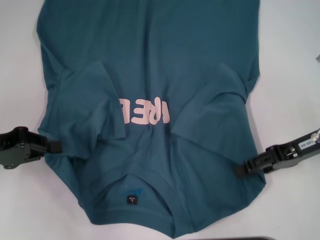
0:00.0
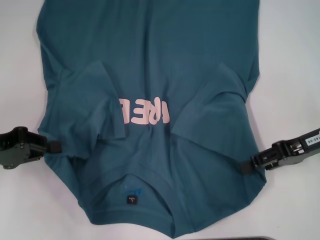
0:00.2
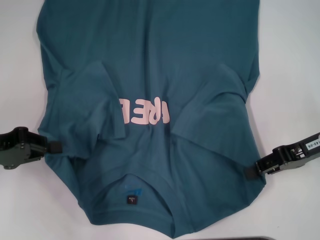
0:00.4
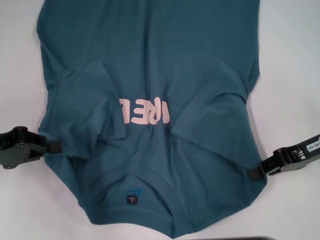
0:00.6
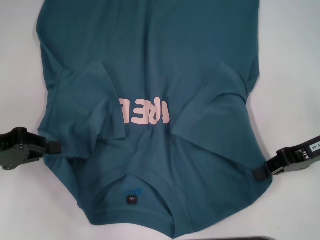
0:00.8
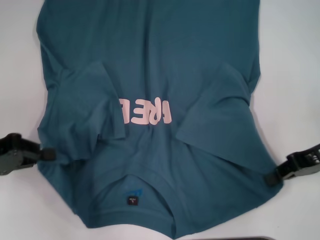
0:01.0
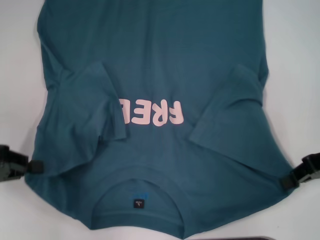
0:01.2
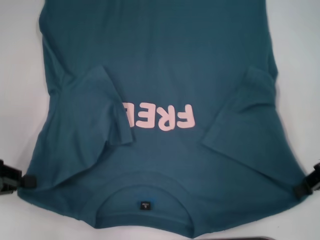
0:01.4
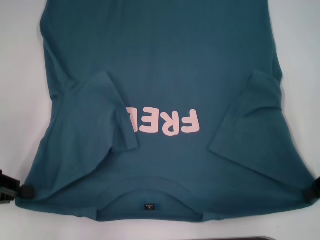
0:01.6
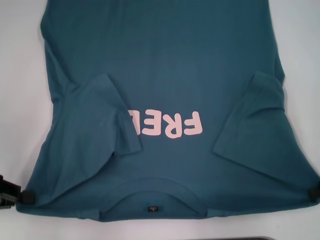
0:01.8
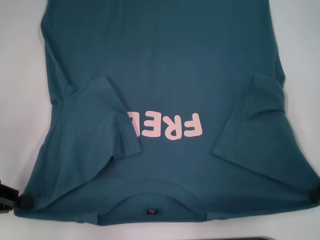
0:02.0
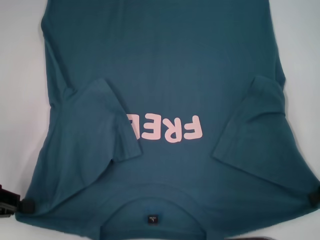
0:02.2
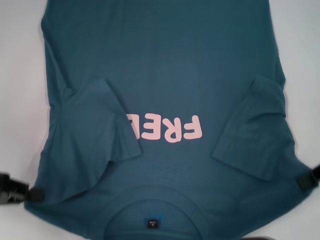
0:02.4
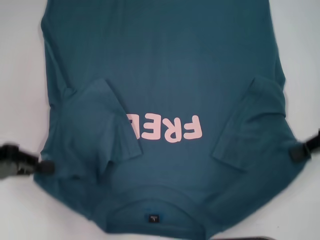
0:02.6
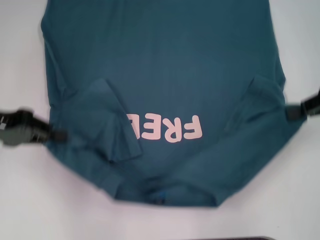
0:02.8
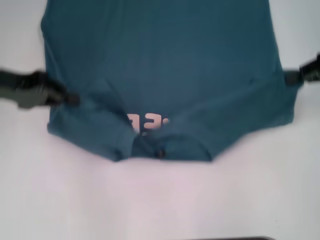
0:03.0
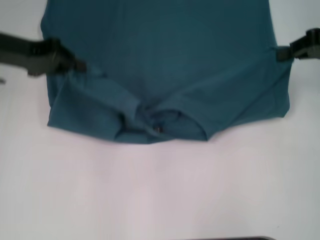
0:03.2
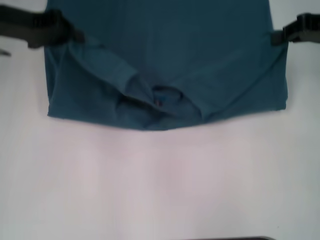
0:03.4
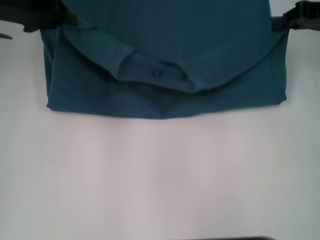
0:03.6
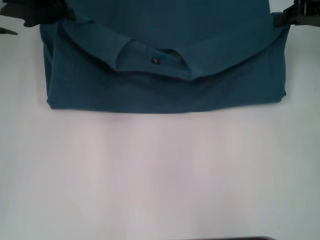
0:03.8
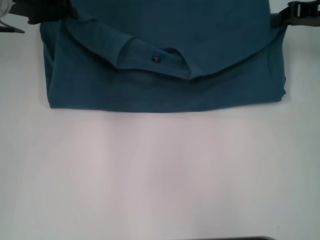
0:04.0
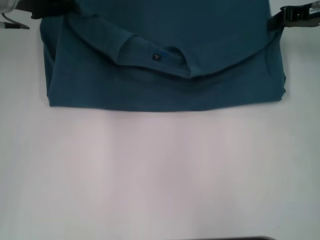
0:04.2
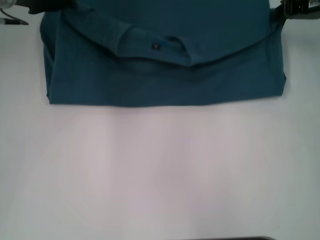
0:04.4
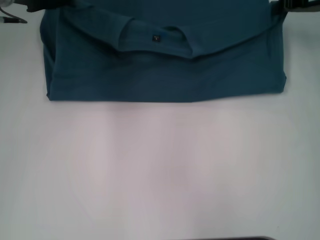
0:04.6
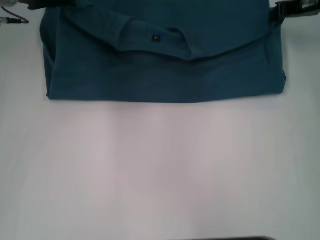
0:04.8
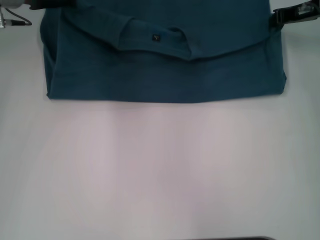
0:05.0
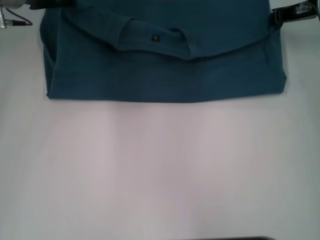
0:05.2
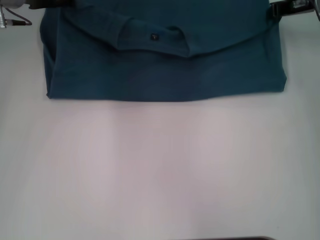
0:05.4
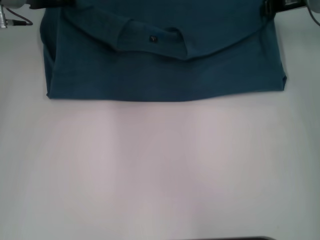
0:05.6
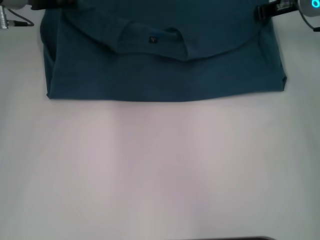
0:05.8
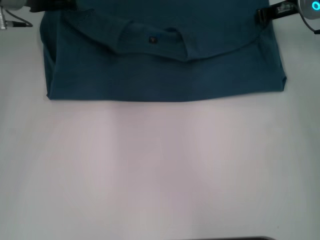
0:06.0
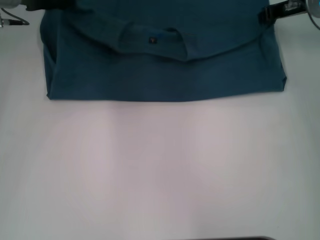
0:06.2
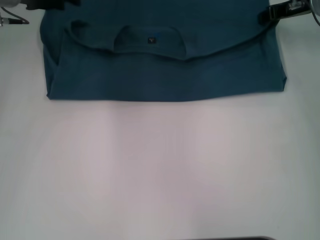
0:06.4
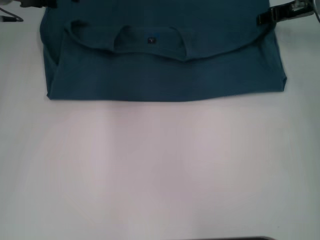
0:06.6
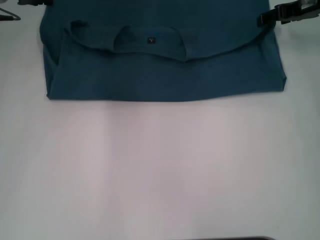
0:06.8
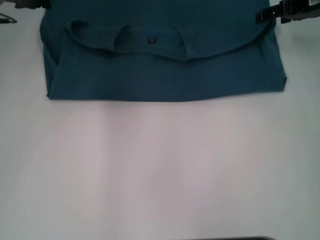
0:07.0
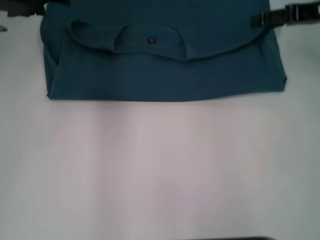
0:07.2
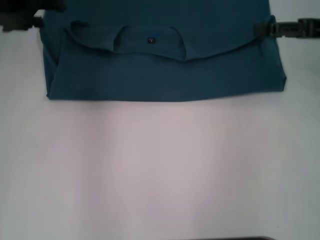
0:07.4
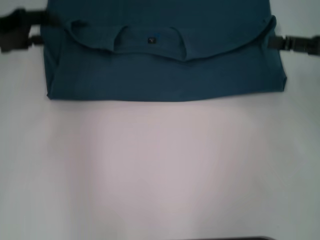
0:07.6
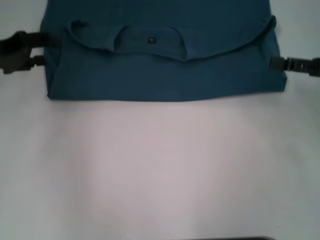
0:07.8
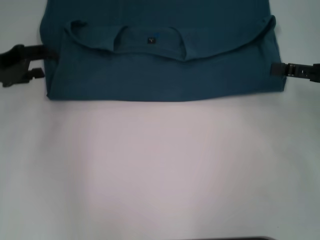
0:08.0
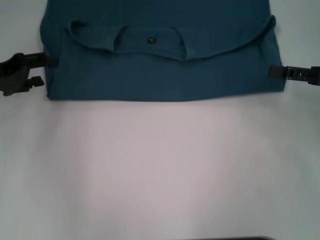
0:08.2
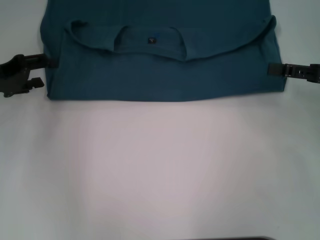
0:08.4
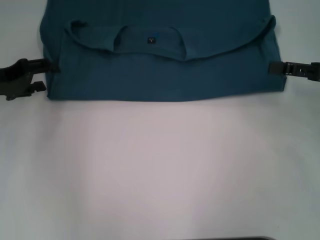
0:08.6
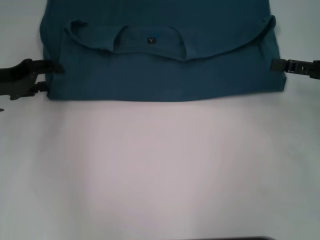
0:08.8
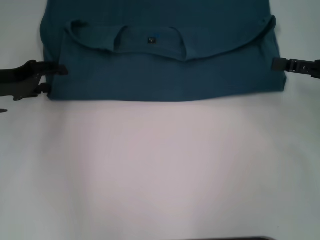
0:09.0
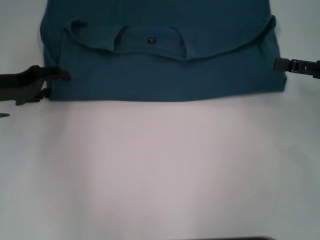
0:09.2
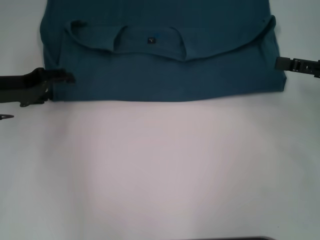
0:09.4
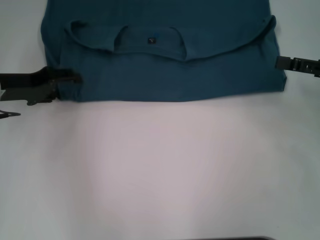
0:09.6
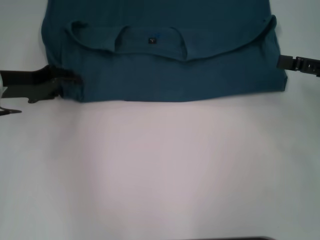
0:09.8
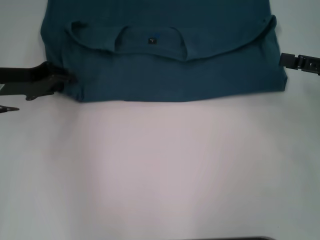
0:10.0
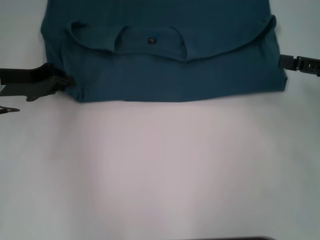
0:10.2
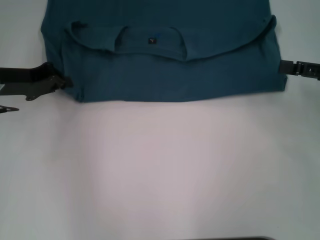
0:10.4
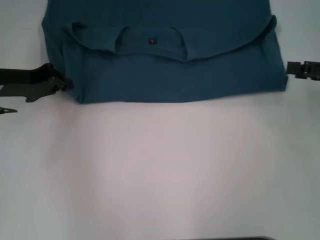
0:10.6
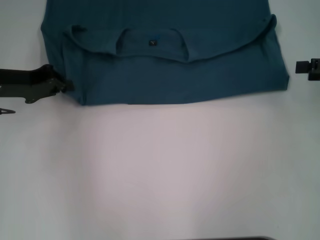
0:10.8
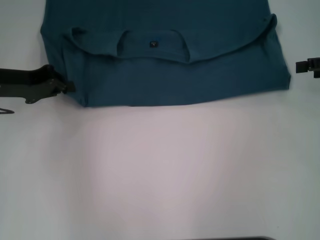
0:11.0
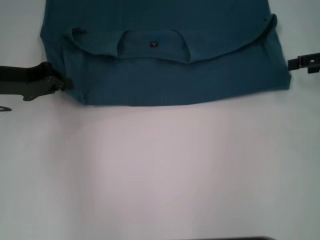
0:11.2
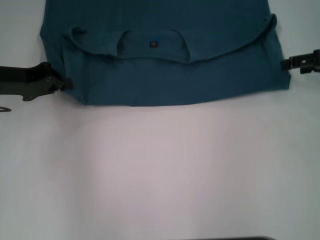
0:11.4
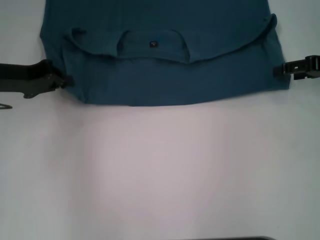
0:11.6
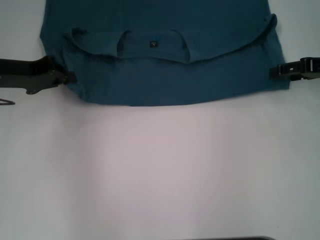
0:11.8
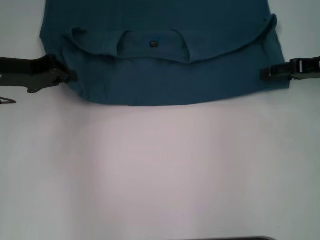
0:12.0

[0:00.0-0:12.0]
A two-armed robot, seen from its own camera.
Step, 0:00.8 to 0:06.8: Fold the clothes to the left.
Step, 0:00.8 to 0:06.8: Fold the clothes to the right.
0:00.0 to 0:01.6: The right gripper is displaced to the right by some 5 cm, and closes up.
0:01.6 to 0:03.0: The right gripper is displaced forward and upward by about 10 cm. Meanwhile the left gripper goes some 15 cm forward, to the right and upward.
0:03.0 to 0:04.4: The right gripper moves forward, roughly 10 cm. The left gripper moves forward and to the right, roughly 15 cm.
0:04.4 to 0:06.0: The right gripper moves approximately 5 cm.
0:06.0 to 0:07.6: The left gripper goes approximately 10 cm backward and to the left, and opens its fingers; the right gripper heads backward and to the right, covering roughly 15 cm, and opens its fingers.
0:07.6 to 0:09.0: The left gripper moves downward, approximately 5 cm.
0:09.0 to 0:10.4: The left gripper closes up.
0:10.4 to 0:12.0: The right gripper moves forward, about 10 cm.

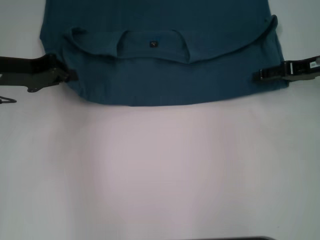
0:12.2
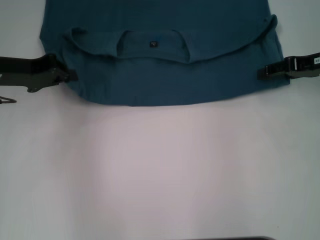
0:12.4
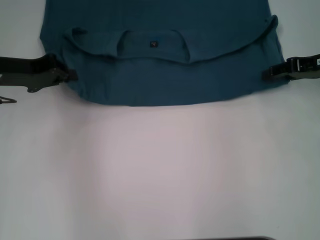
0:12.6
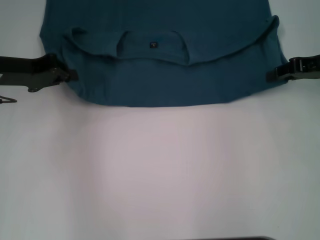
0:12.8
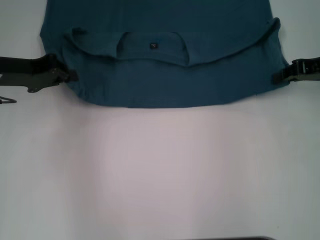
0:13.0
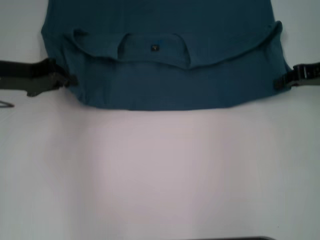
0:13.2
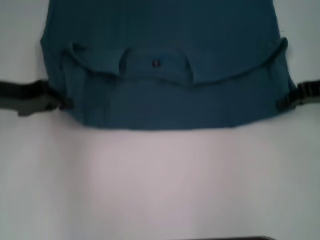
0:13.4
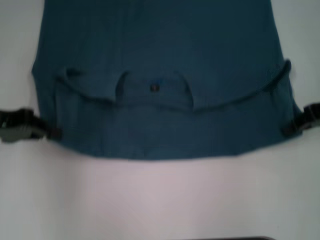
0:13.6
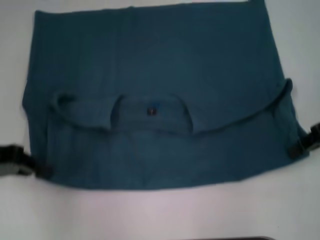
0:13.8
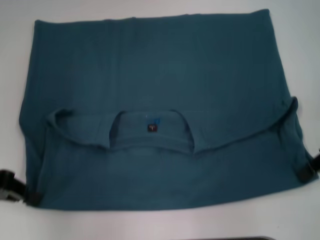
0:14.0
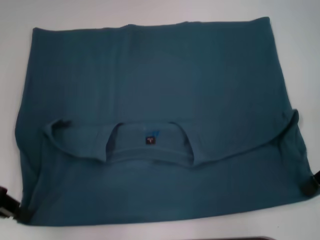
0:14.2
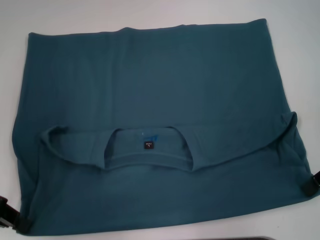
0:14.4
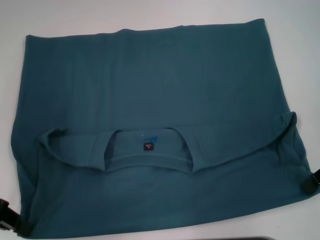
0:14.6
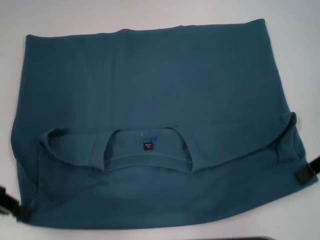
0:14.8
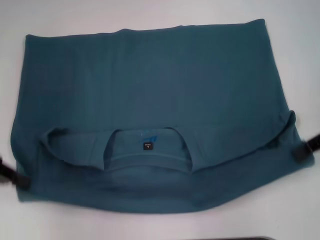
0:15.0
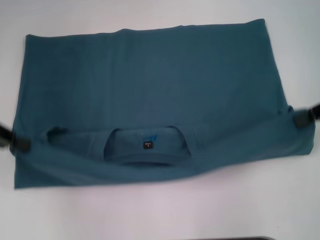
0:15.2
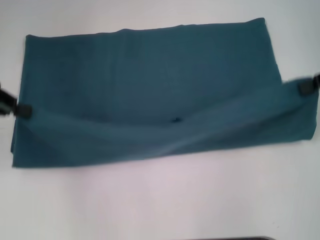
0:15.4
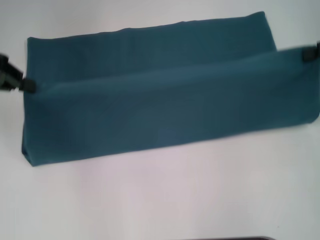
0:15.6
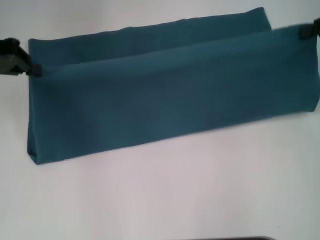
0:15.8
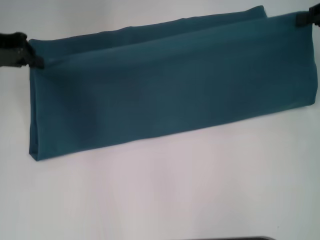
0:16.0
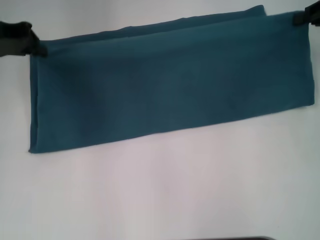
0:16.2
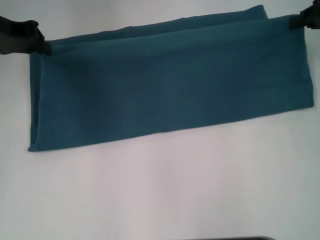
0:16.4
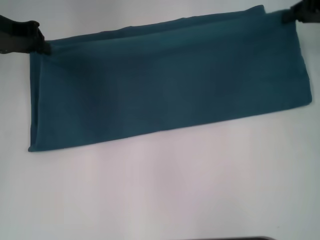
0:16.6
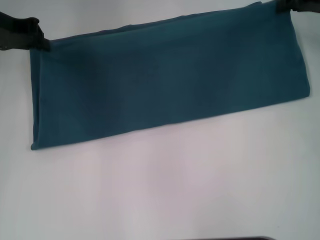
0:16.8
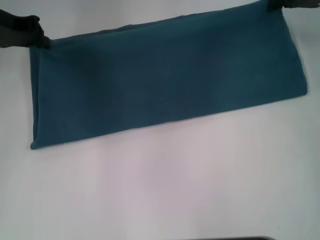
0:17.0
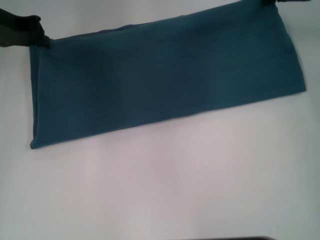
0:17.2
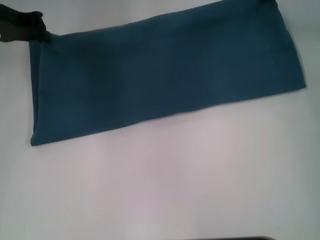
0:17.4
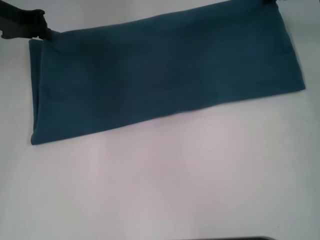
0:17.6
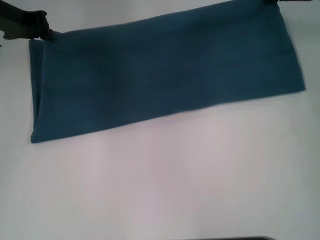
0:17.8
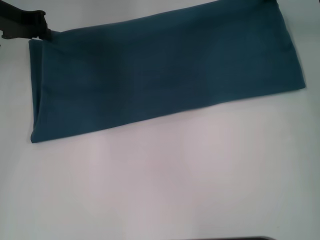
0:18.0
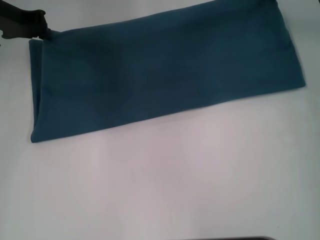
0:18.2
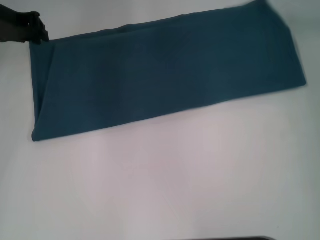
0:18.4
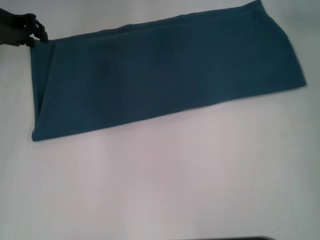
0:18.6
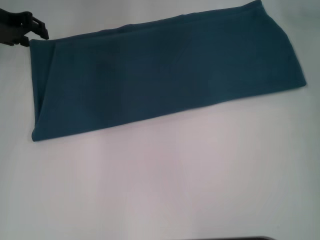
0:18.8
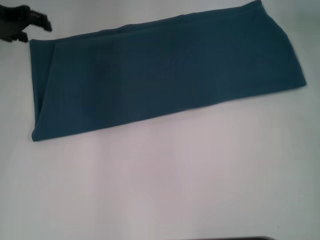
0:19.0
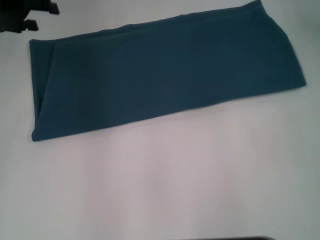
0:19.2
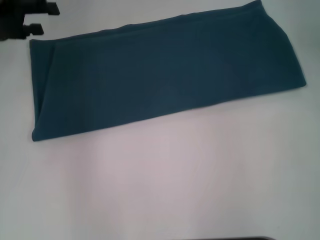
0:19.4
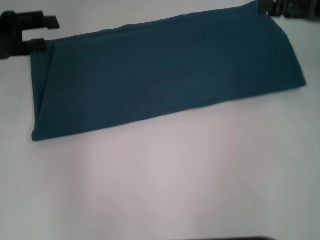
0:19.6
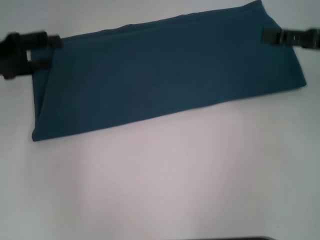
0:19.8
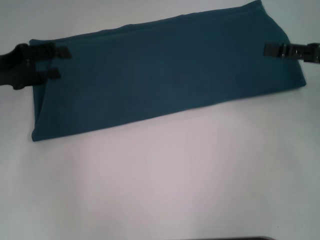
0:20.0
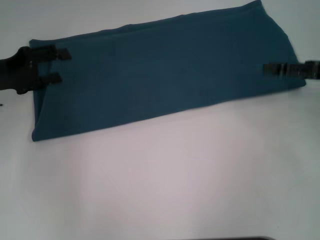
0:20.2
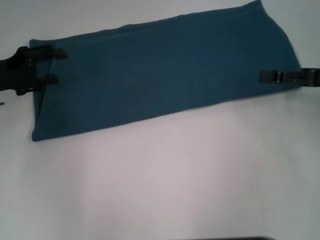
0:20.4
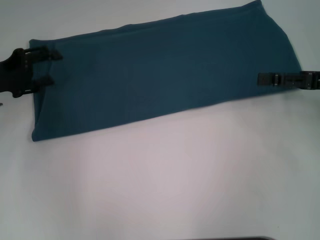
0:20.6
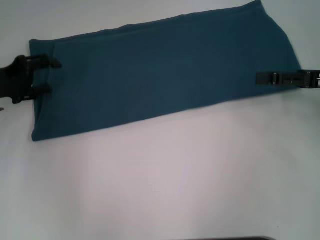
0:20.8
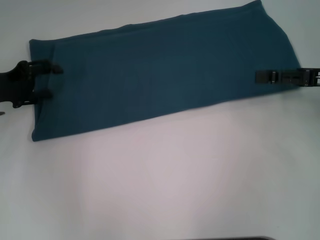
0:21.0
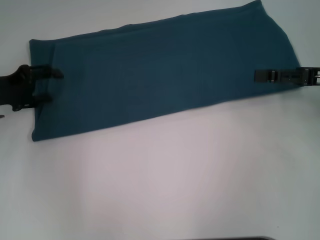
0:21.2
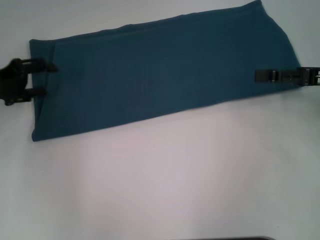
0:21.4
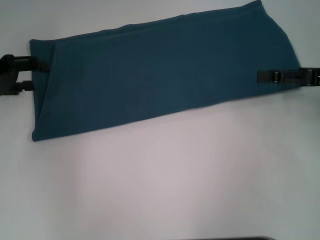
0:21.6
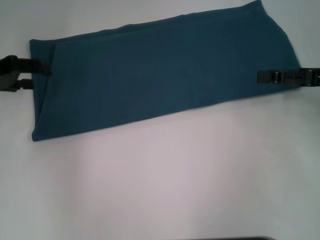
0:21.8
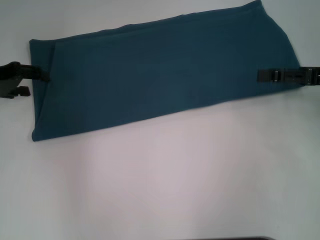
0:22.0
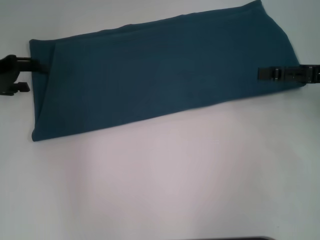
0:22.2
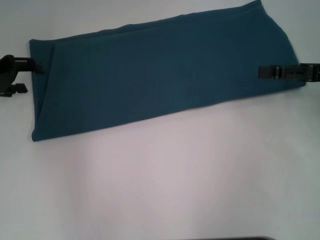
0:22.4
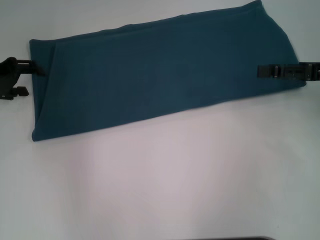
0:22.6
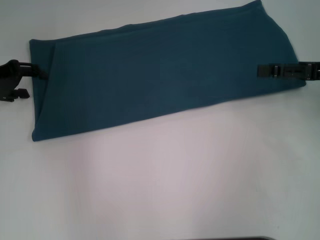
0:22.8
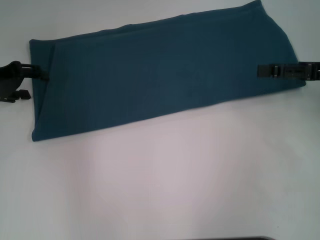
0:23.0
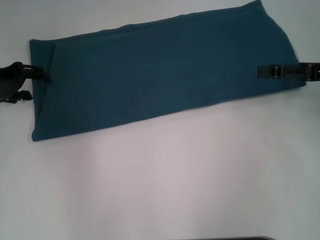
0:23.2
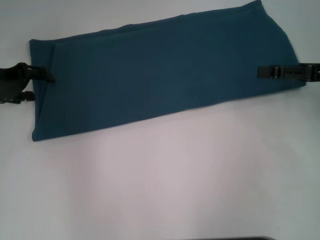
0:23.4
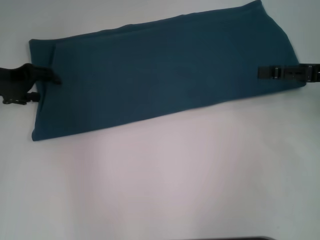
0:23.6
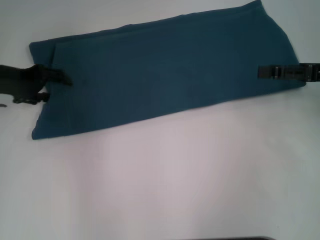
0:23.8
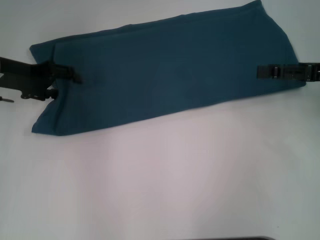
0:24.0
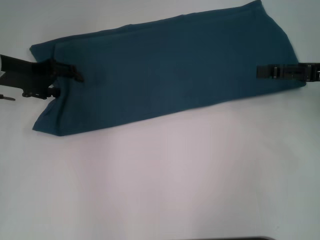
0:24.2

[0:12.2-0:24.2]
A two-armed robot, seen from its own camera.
Step, 0:12.2 to 0:14.6: Pull the clothes with your left hand.
Step, 0:12.2 to 0:14.6: Pull the clothes with your right hand.
Step, 0:14.8 to 0:18.4: Fold the clothes to the right.
0:12.2 to 0:13.8: Both grippers travel together backward, roughly 5 cm. The right gripper closes.
0:15.2 to 0:16.6: The right gripper goes roughly 10 cm forward. The left gripper heads forward and to the right, covering about 15 cm.
0:16.6 to 0:18.2: The right gripper is displaced to the left by some 5 cm.
0:18.2 to 0:19.8: The right gripper moves backward and to the right, roughly 15 cm, and opens; the left gripper heads backward and to the left, covering some 10 cm, and opens its fingers.
0:19.8 to 0:21.2: The left gripper moves downward, roughly 5 cm.
0:22.6 to 0:24.2: The left gripper is displaced to the right by about 5 cm.
